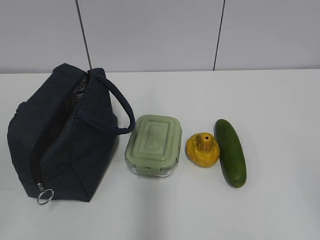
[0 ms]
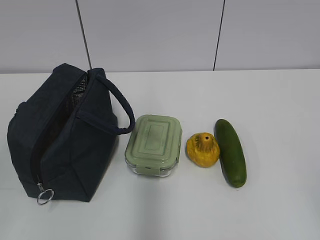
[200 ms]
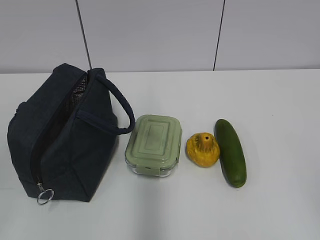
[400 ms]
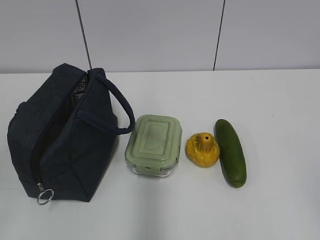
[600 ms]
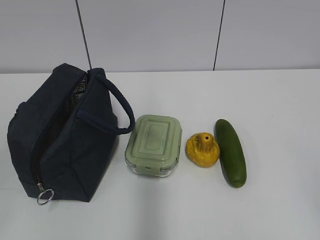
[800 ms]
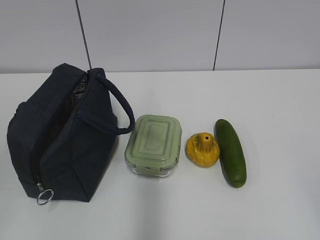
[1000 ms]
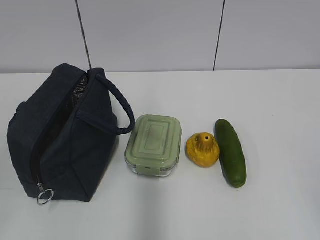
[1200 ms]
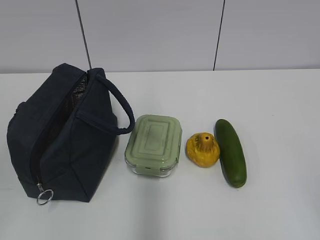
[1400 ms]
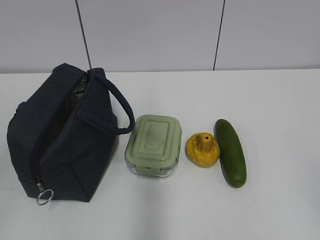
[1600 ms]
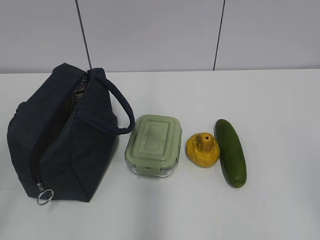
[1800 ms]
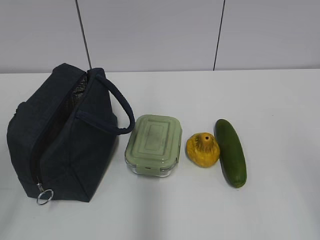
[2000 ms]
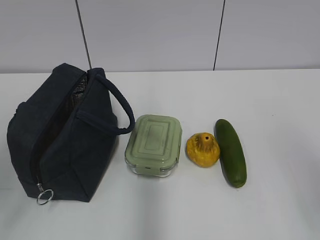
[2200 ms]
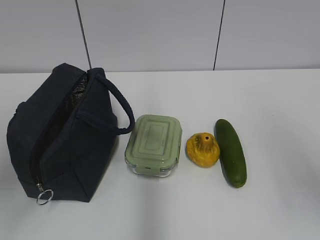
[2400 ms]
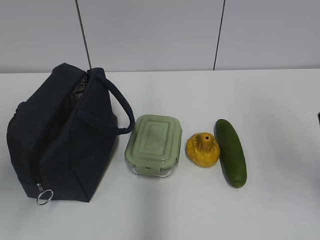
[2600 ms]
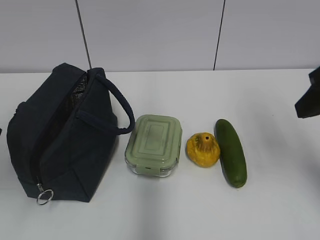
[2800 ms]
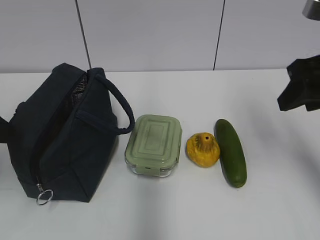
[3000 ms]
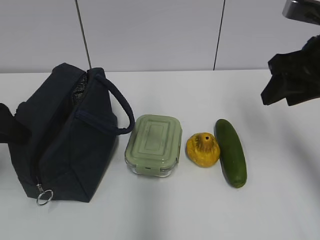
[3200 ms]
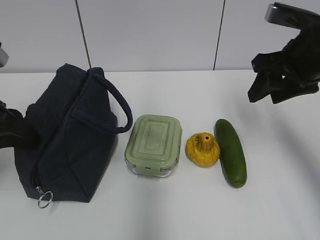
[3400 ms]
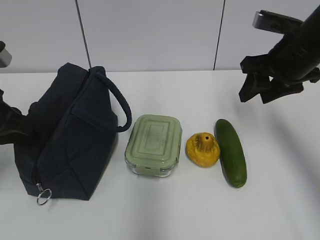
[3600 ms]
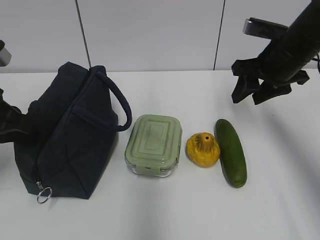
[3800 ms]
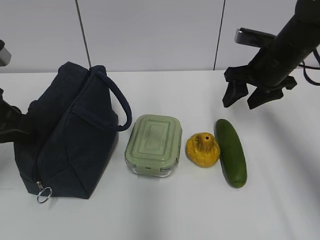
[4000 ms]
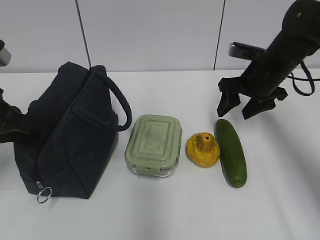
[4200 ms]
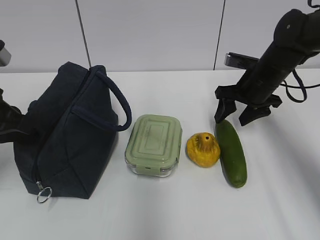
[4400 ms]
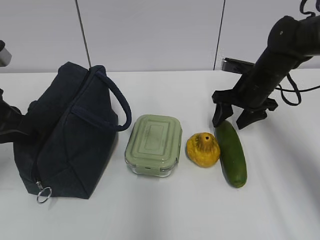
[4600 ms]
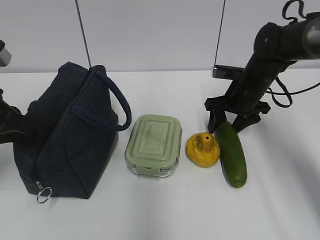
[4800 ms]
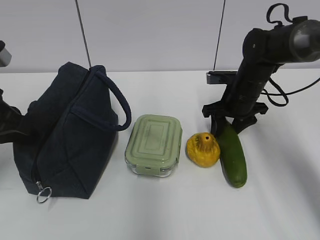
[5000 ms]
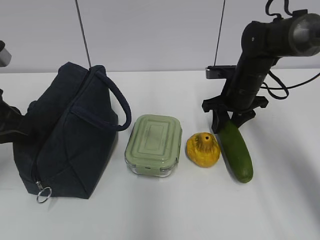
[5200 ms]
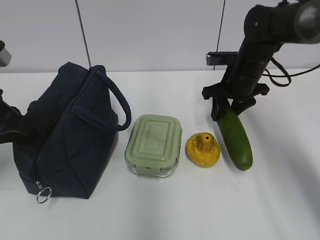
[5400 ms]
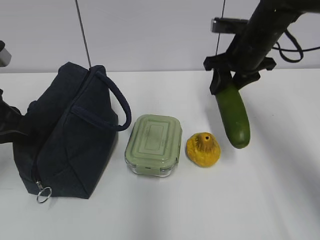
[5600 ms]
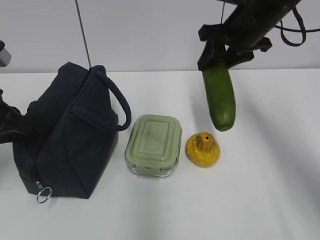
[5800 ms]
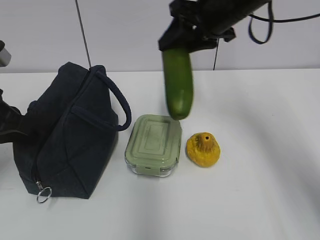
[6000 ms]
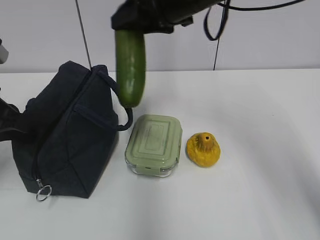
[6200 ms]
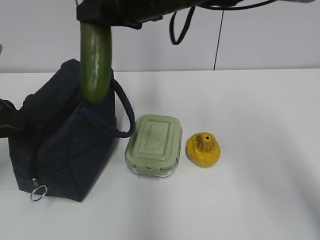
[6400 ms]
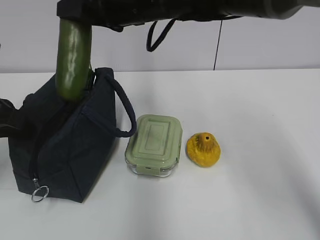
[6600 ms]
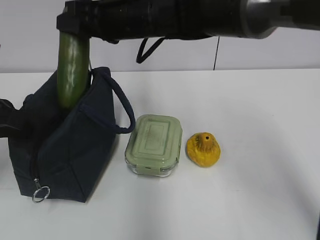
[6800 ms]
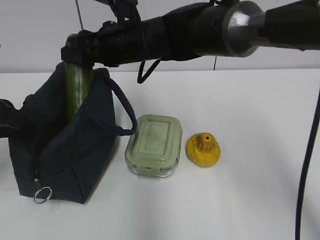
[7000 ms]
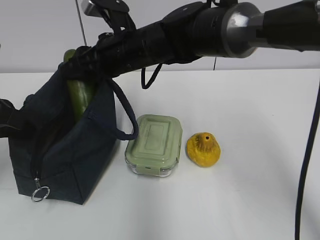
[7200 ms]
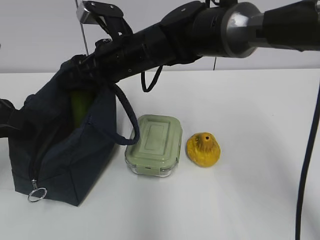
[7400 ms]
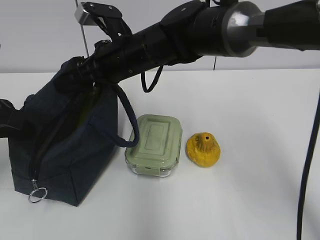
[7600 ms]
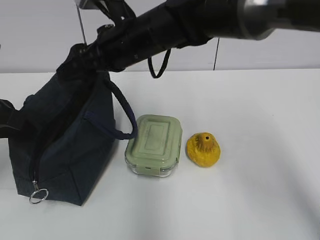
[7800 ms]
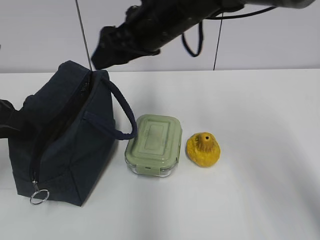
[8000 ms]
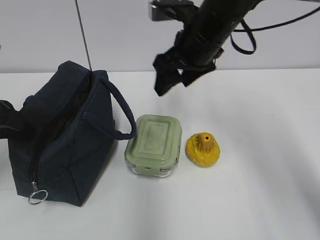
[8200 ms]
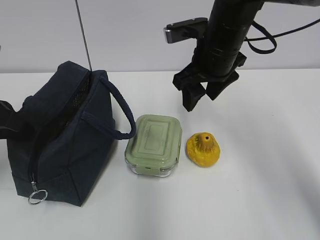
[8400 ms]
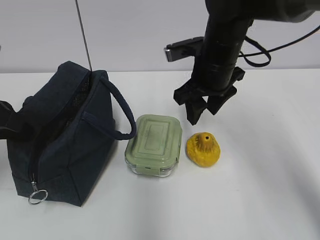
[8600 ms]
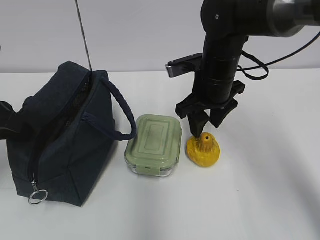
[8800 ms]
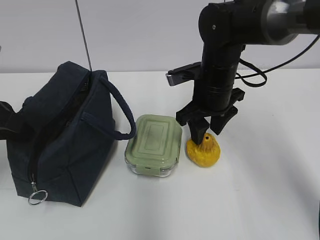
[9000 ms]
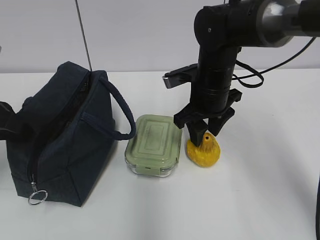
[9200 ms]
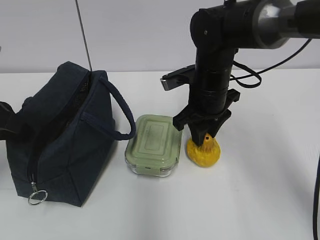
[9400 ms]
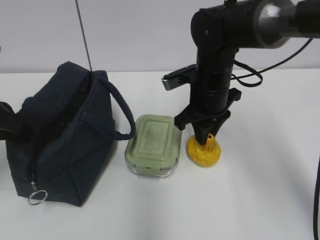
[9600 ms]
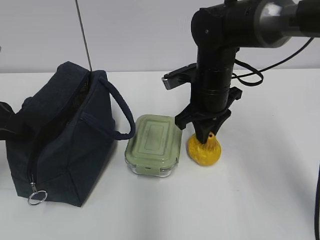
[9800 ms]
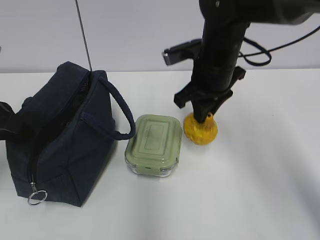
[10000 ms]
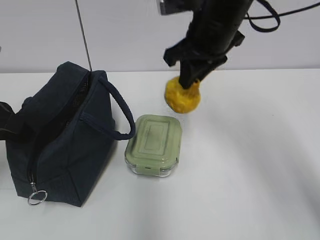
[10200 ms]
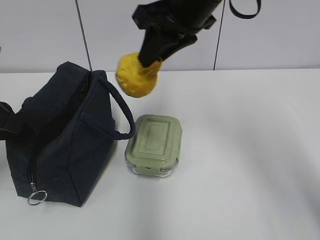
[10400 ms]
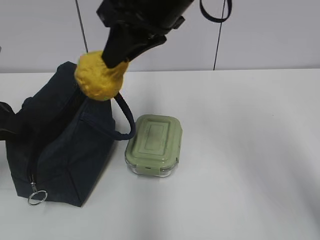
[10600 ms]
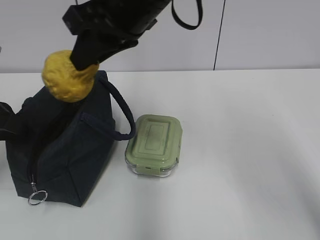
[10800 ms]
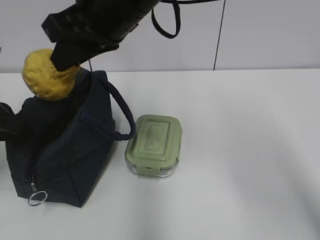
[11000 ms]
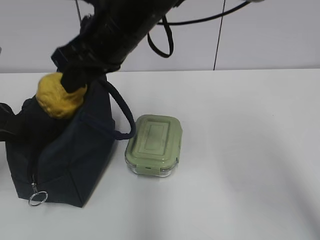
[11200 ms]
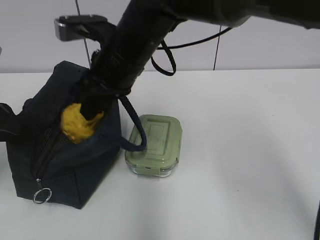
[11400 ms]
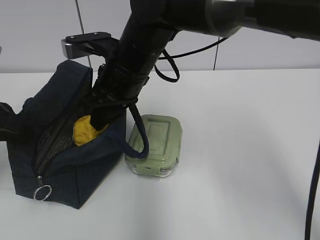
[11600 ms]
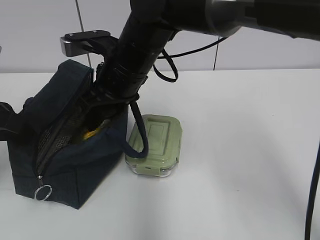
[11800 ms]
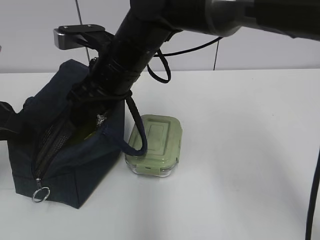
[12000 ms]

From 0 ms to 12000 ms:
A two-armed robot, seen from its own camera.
Step, from 0 ms to 5000 ms: Grab the cucumber with your right hand.
Step, from 7000 ms to 7600 ms: Place it into the bag with your right hand.
Step, from 7800 ms to 9800 ms: Grab the pear with your right hand.
Step, from 10000 ms to 11600 ms: Place it into the bag with your right hand.
From 1600 ms to 3000 ms: The two grippers go about 25 cm forward.
From 3000 ms to 4400 ms: The right gripper travels forward and downward by about 20 cm. The left gripper changes place by roughly 5 cm, and closes.
From 4400 ms to 6000 ms: The right gripper heads upward and to the left, covering approximately 20 cm.
From 6000 ms to 7600 ms: The right gripper shifts roughly 15 cm to the left and downward, and opens up.
From 7600 ms to 9000 ms: The right gripper is displaced to the right by about 15 cm.
From 9000 ms to 10400 ms: The right gripper is displaced upward by approximately 15 cm, and closes.
From 10400 ms to 12000 ms: The right gripper moves to the left and downward, approximately 15 cm, and opens up.

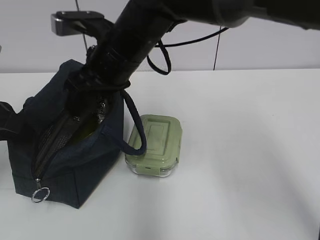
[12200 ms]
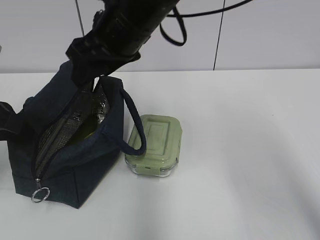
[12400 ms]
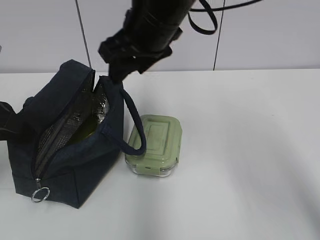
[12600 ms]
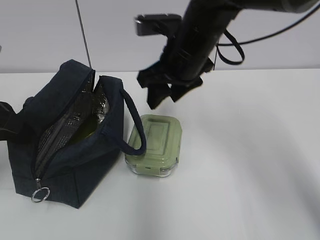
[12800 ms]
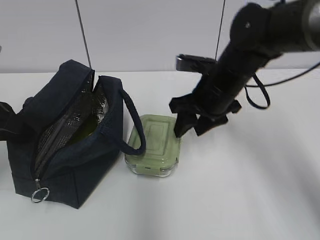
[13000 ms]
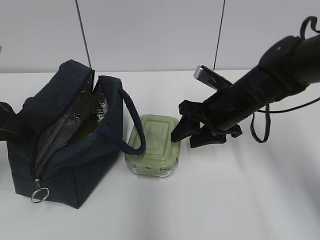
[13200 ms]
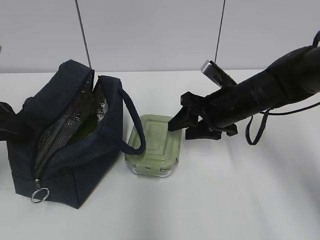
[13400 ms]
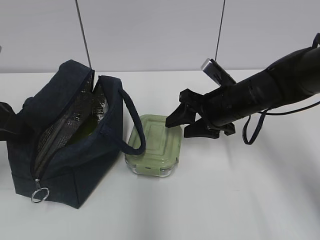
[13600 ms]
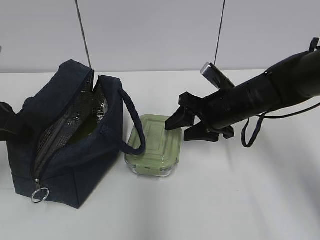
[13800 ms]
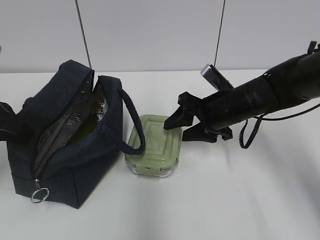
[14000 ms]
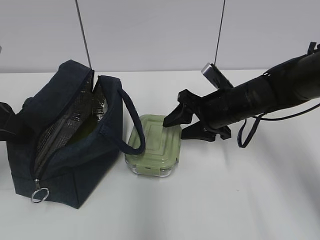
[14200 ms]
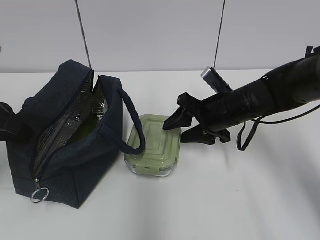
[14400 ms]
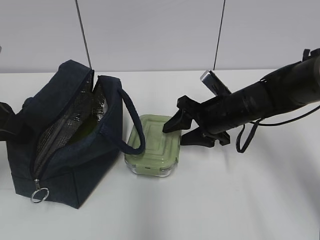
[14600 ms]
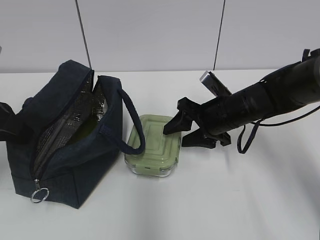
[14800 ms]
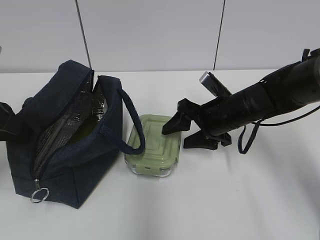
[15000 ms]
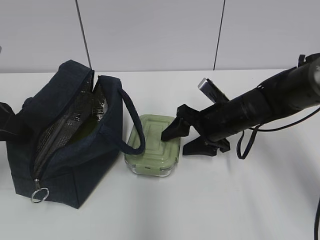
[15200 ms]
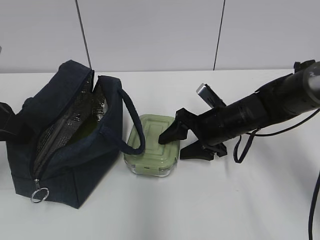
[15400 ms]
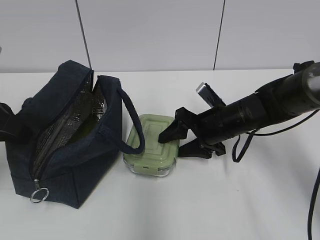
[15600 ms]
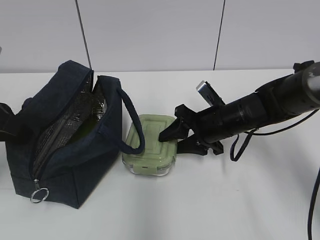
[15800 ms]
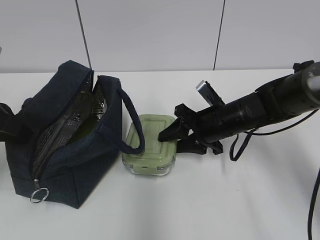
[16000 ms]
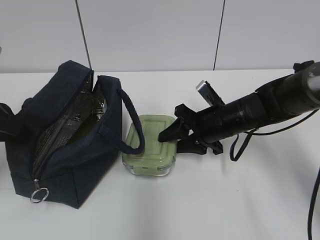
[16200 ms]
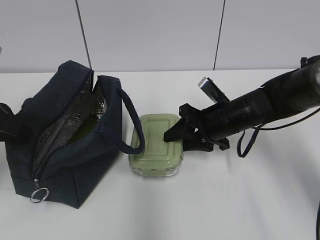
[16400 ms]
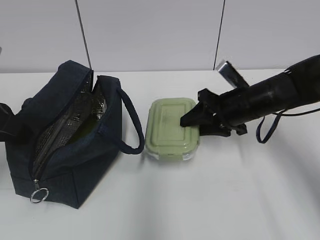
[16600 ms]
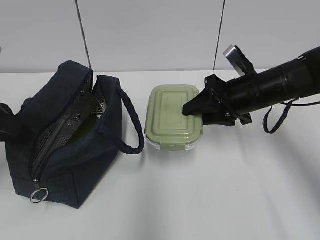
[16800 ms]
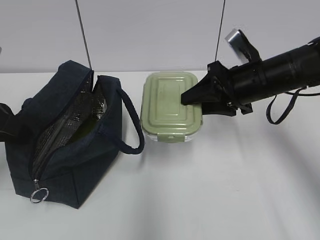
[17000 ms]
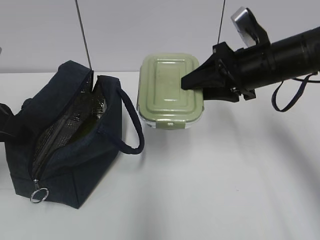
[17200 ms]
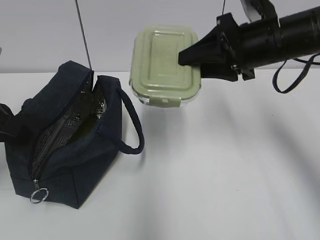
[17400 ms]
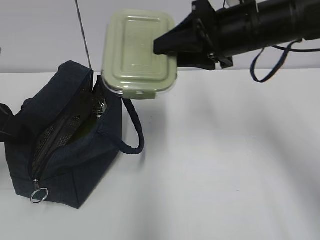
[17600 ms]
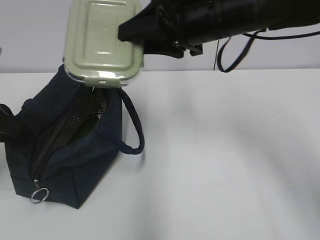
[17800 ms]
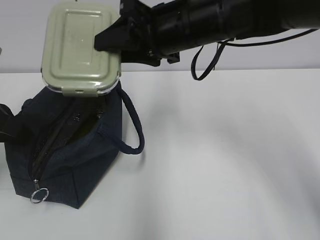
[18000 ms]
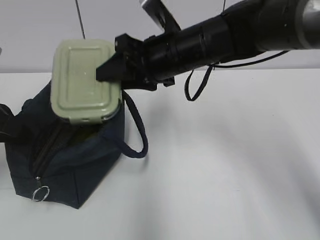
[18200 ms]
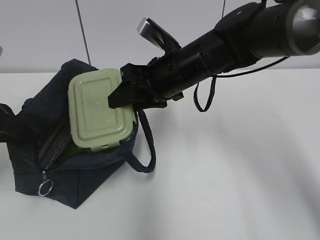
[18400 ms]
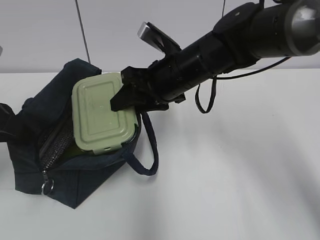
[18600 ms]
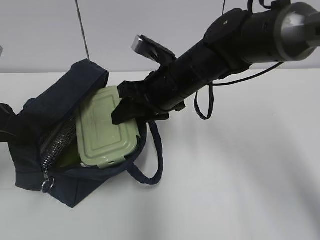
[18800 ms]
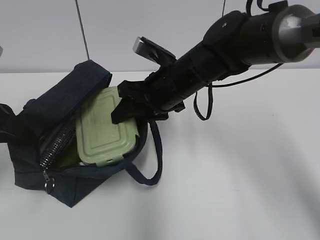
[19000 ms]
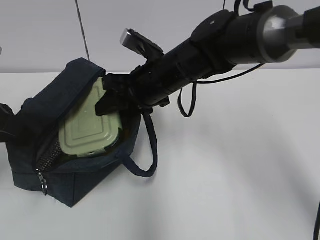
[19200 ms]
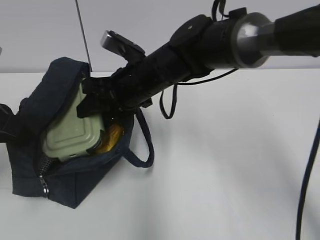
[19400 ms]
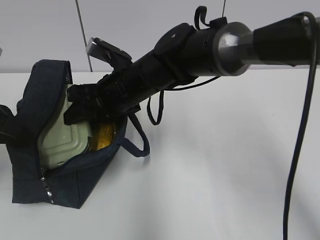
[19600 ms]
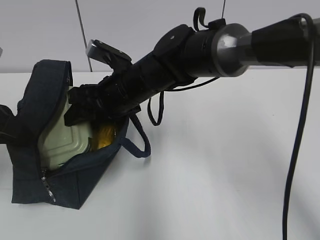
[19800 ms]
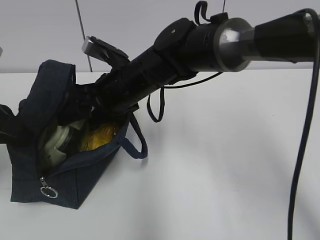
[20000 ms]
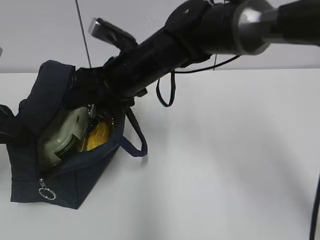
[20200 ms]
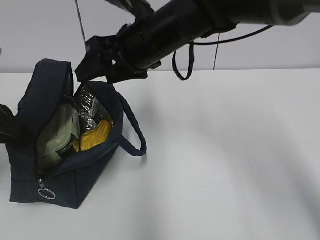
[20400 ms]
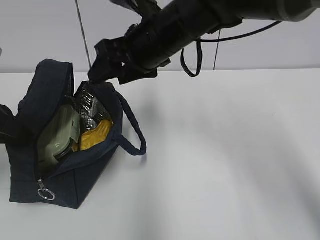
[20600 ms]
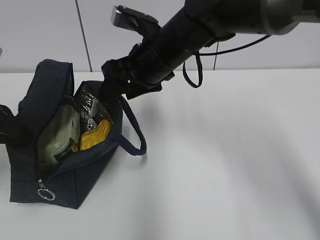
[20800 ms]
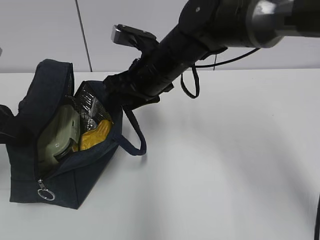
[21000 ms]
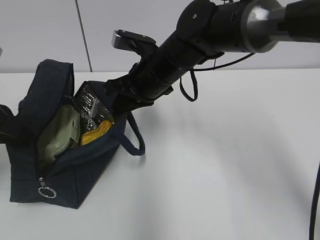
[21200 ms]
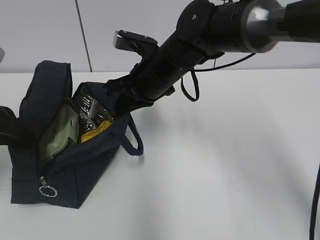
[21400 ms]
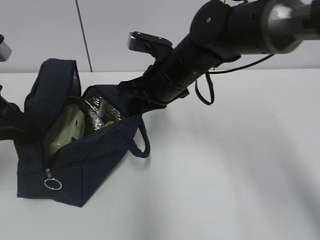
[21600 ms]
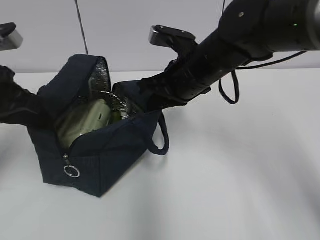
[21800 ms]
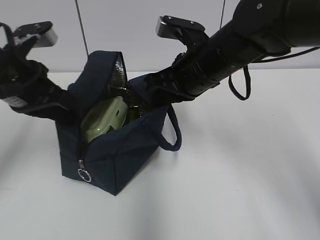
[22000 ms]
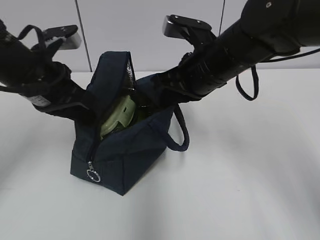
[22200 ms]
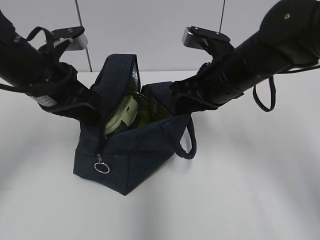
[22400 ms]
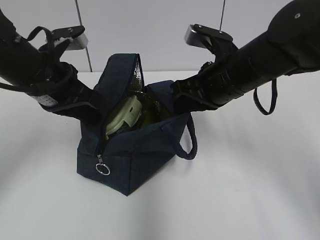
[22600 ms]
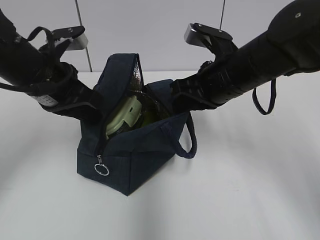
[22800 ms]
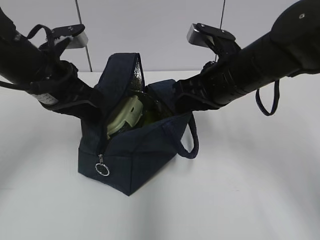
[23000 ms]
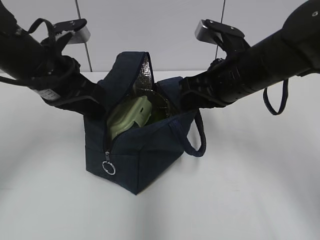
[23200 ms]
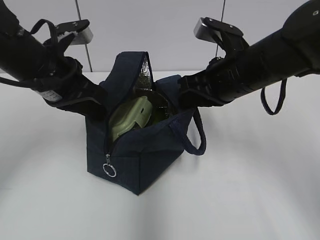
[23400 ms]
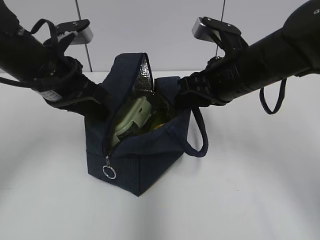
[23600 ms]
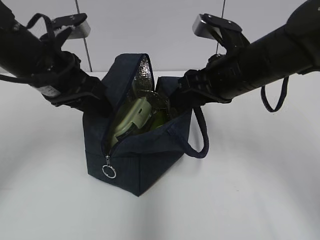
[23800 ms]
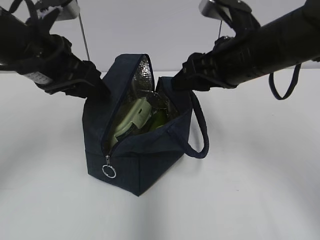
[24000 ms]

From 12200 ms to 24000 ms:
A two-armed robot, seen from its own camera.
Step, from 12200 ms to 16200 ms: Grab the lunch box with your right hand.
Step, from 20400 ms to 21200 ms: Grab the lunch bag with your right hand.
Step, from 21400 ms to 23800 ms: Move the lunch bag to the right.
From 12200 ms to 13600 ms: The right gripper shifts some 20 cm to the right and downward.
From 13600 ms to 15200 ms: The grippers make only small movements.
From 15200 ms to 16600 ms: The right gripper closes up.
From 16600 ms to 18200 ms: The right gripper travels to the left and upward by approximately 15 cm.
From 18200 ms to 19600 ms: The right gripper is displaced to the left by roughly 10 cm.
From 19600 ms to 21000 ms: The right gripper travels upward and back again, about 10 cm each way.
From 21000 ms to 22600 ms: The right gripper heads to the right, covering some 10 cm, and closes its fingers; the left gripper goes approximately 10 cm forward and to the right.
From 22600 ms to 24000 ms: The left gripper opens. Meanwhile the right gripper changes place by approximately 5 cm, and opens.
